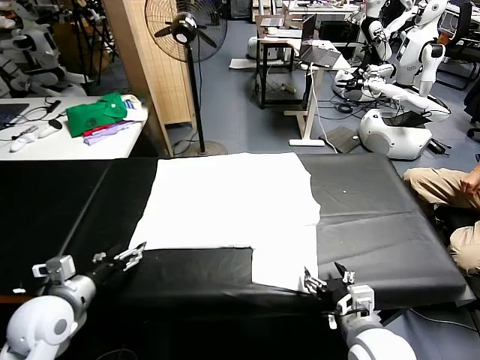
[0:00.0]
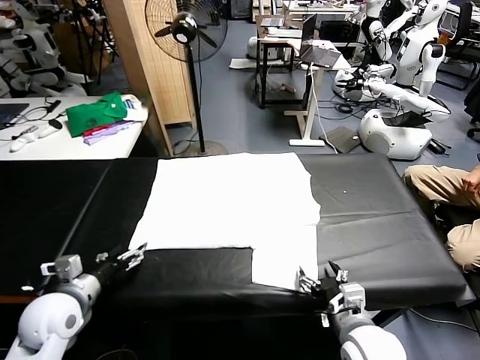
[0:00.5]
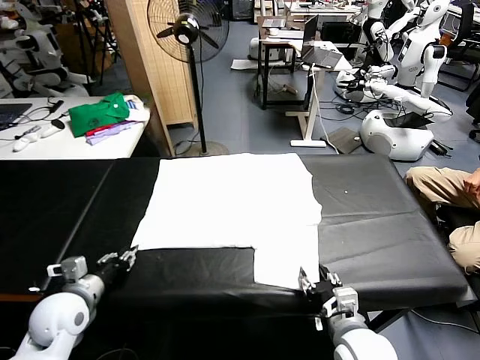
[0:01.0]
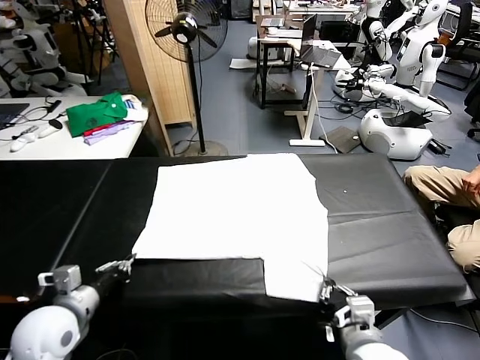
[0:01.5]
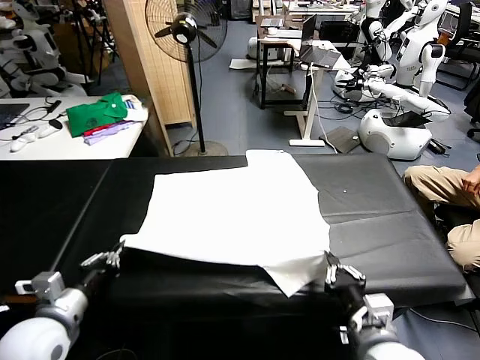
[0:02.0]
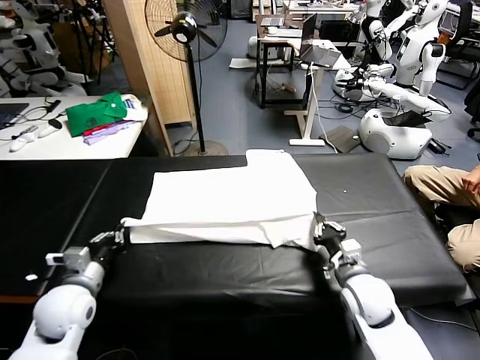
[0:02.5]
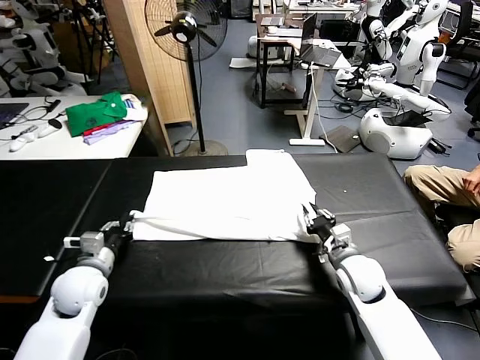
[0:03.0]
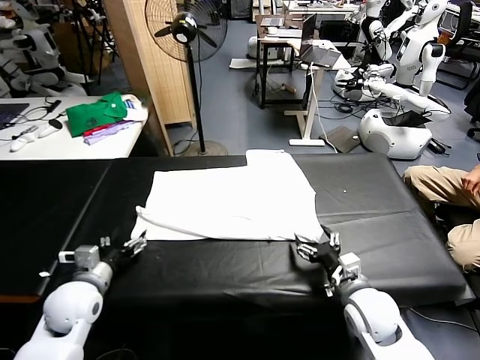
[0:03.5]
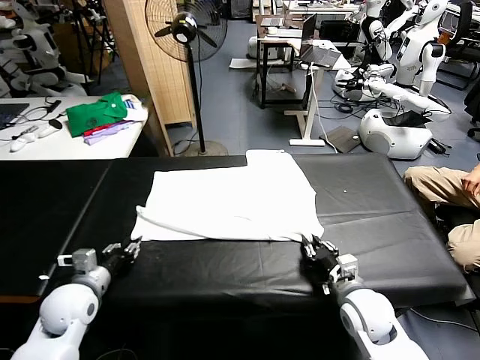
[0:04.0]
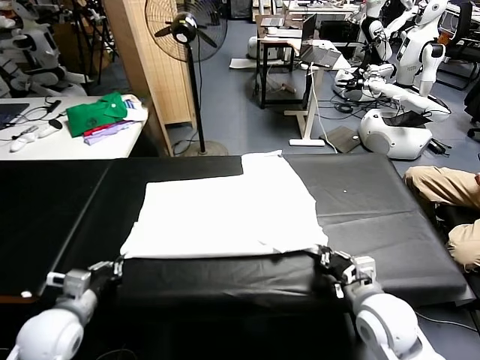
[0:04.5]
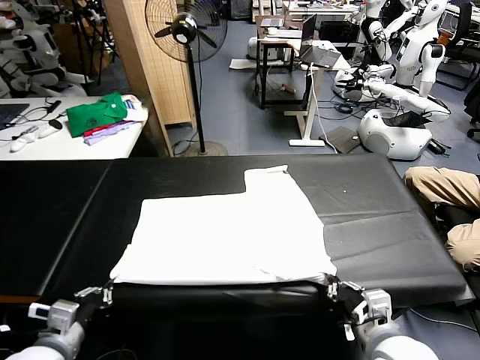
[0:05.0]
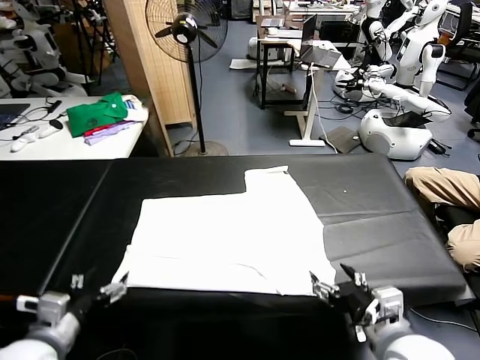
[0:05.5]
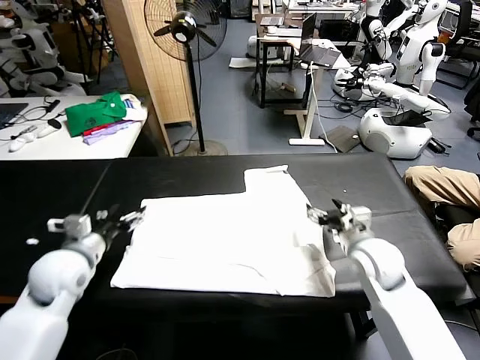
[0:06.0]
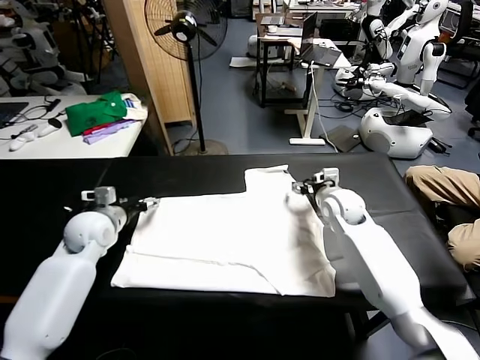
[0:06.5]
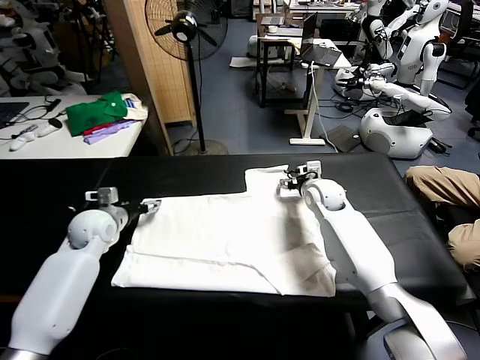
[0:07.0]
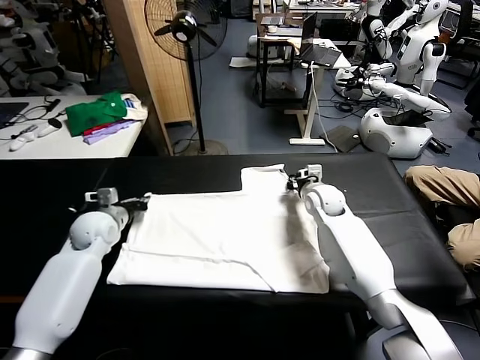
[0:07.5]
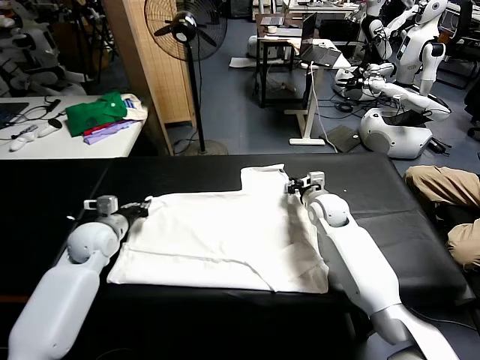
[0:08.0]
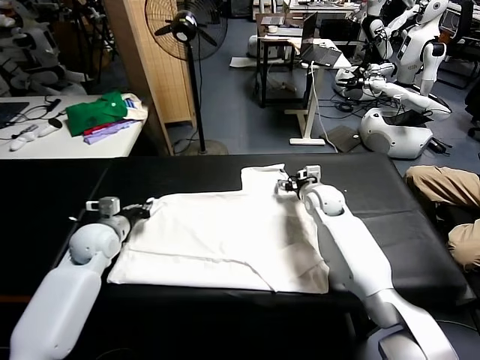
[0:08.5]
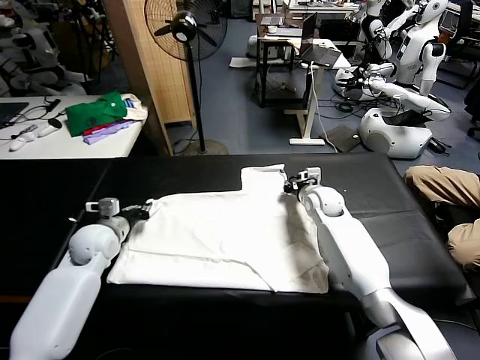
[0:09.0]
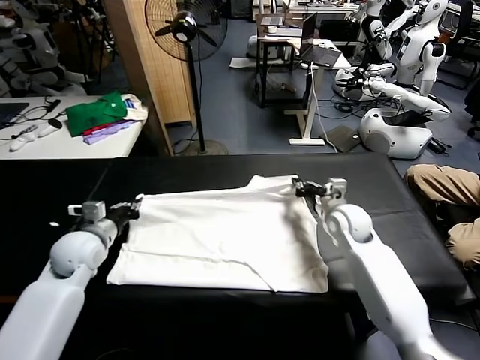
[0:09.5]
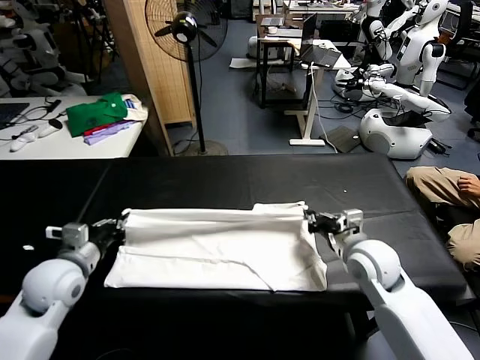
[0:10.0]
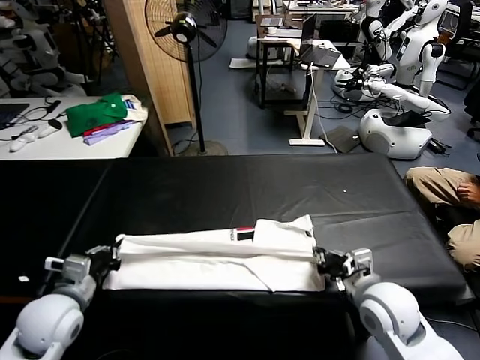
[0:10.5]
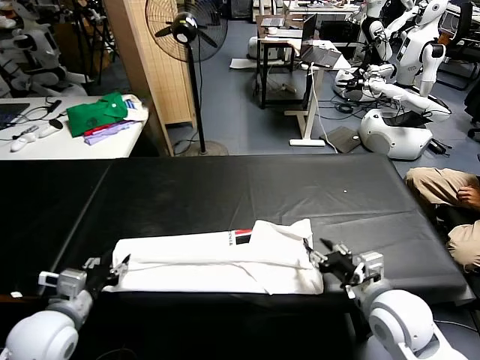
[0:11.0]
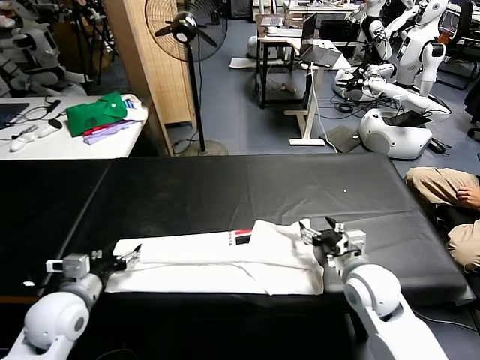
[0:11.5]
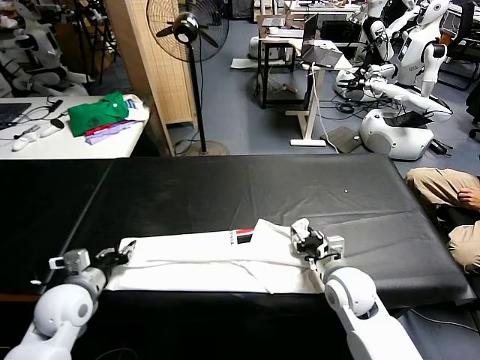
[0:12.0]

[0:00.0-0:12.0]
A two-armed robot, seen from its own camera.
Task of the whole recording: fold and organize the clothes.
Step, 0:00.0 to 0:01.0: use both grippers simultaneously to clamp the lower edge of the clothing fabric.
Step, 0:01.5 to 0:03.0: use both grippers to drag the lower edge of the fabric forward and fold it over the upper edge.
Step, 0:03.5 to 0:05.0: Drag the clothes downward with both gripper.
Step, 0:05.5 to 0:08.5: use both grippers simultaneously to clamp the upper edge of the clothing fabric.
Step, 0:09.0 to 0:10.5: use both grippers to drag the upper edge of the fabric backward and fold it over the lower edge.
0:02.0 to 0:04.0: The right gripper moves forward, about 5 cm, and opens, then closes again; the left gripper shifts about 10 cm forward and downward, and opens, then closes again.
0:04.0 to 0:06.0: The right gripper shifts approximately 15 cm forward, and opens its fingers, while the left gripper goes roughly 10 cm upward, moves roughly 15 cm backward and comes back, and opens up.
0:06.0 to 0:08.0: The left gripper shifts about 10 cm forward and downward, and closes its fingers; the right gripper moves forward, about 10 cm, and closes up.
0:08.0 to 0:10.0: The left gripper is displaced backward by some 10 cm, while the right gripper moves backward, approximately 20 cm, and closes.
0:10.0 to 0:12.0: Both grippers move downward, about 5 cm. The right gripper opens, then closes once more. Meanwhile the left gripper goes backward and returns, some 10 cm each way, and opens.

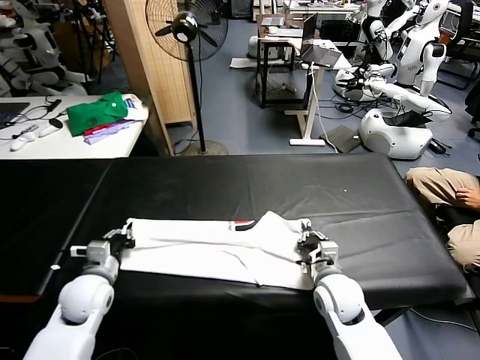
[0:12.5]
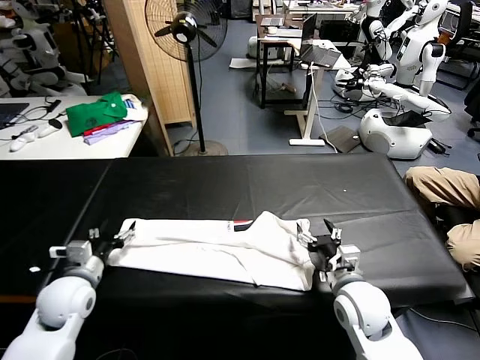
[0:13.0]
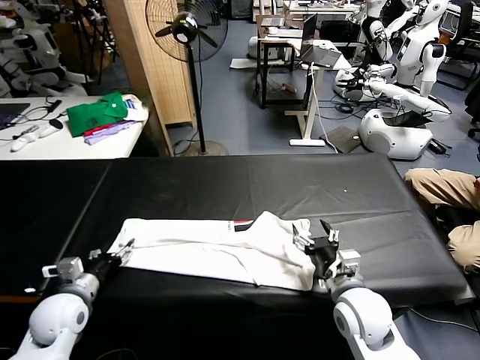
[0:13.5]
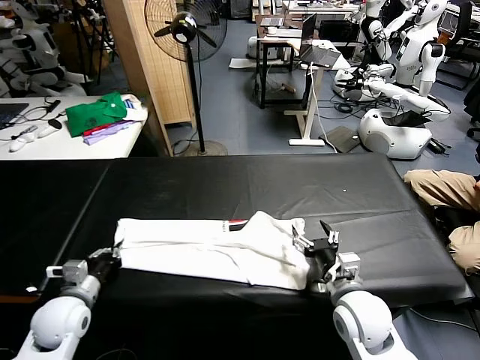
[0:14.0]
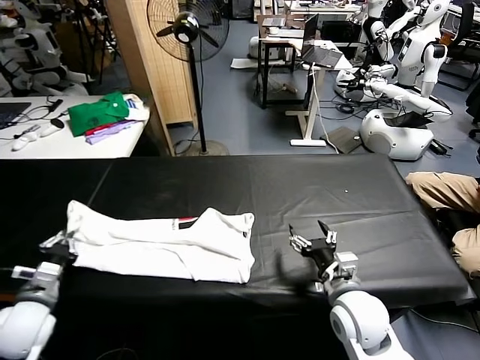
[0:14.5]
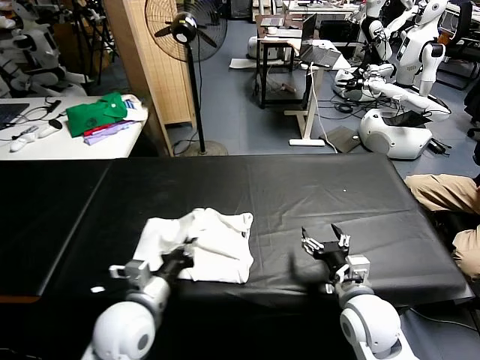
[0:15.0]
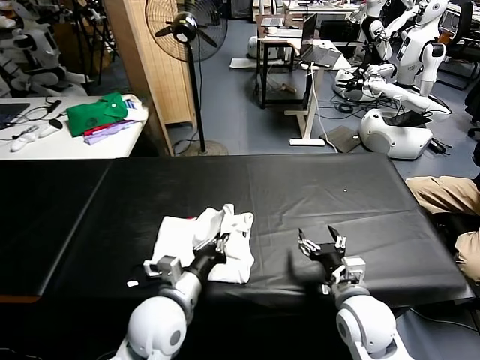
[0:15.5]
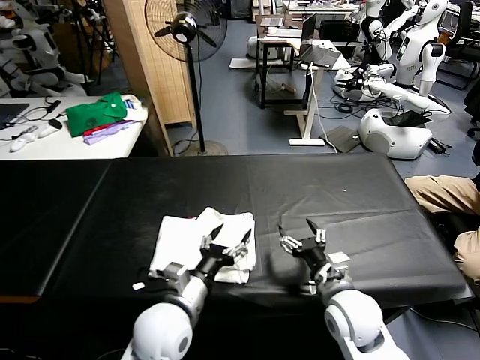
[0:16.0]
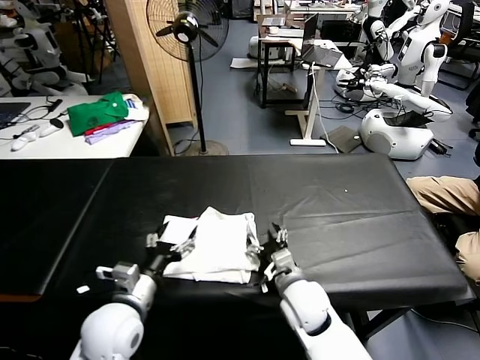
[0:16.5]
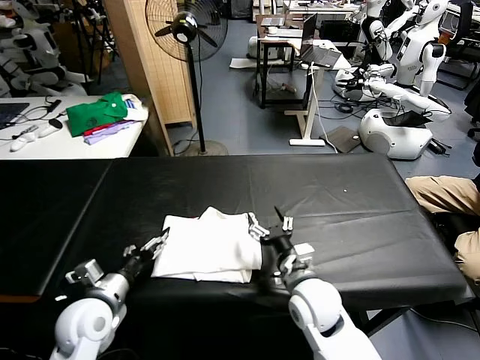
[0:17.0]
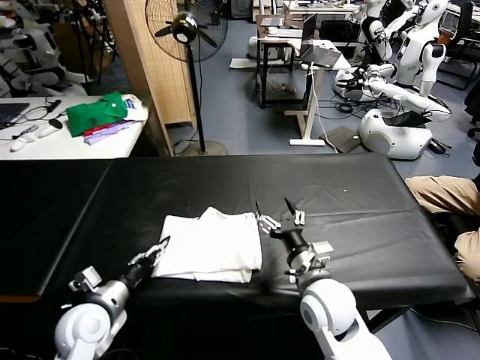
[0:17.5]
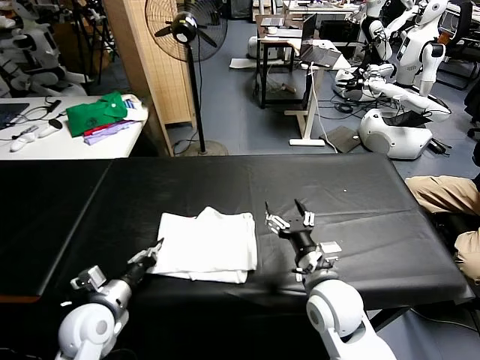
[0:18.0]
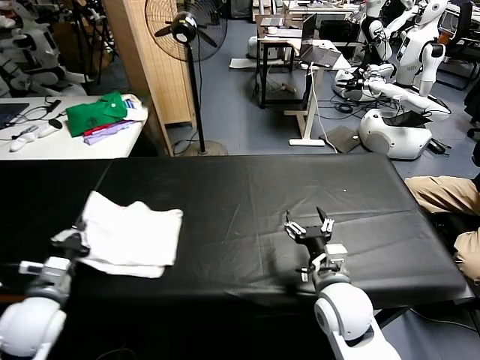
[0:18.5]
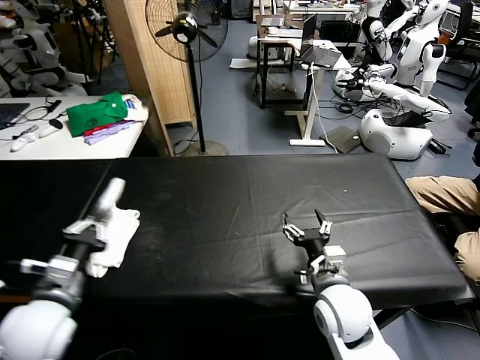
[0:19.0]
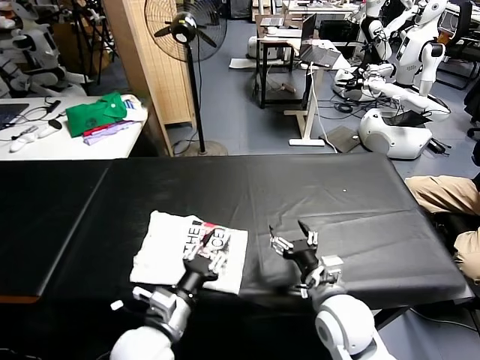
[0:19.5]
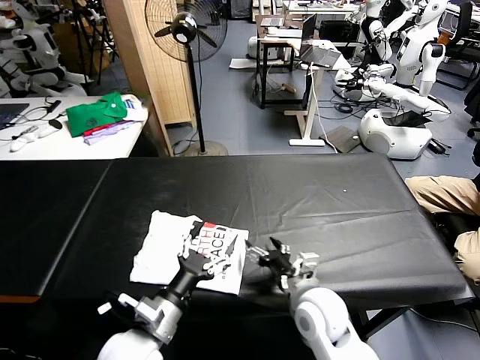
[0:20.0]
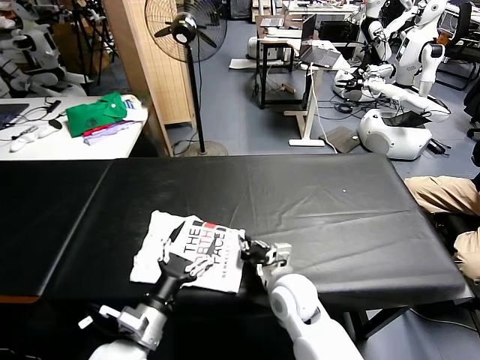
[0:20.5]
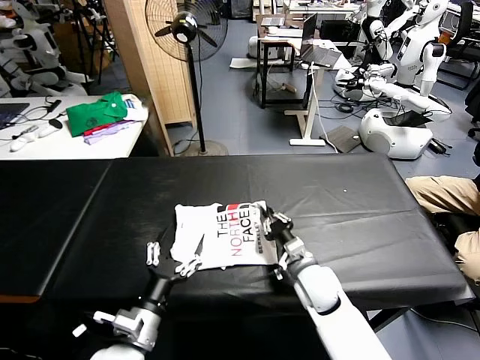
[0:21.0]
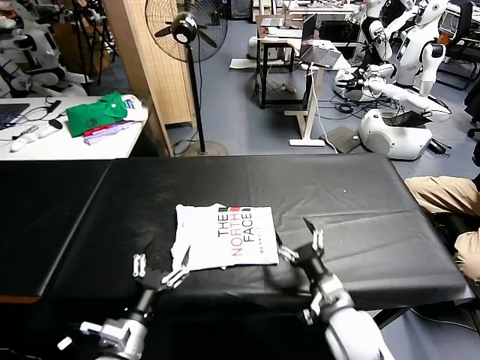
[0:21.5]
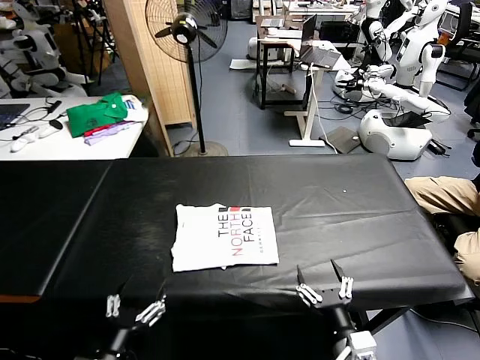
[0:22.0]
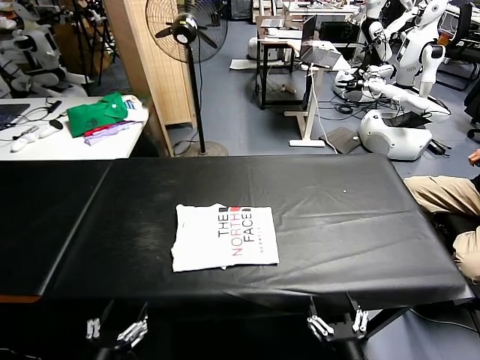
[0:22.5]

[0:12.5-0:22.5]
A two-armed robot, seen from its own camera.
Task of the whole recording: fold and organize the clothes.
Step, 0:14.0 to 0:15.5: use the left gripper to drag the left edge of the fabric to the left and folds it over the right edge.
Step, 0:16.0 to 0:19.5: Flip the folded clothes over with left gripper.
Step, 0:20.0 to 0:21.0: Drag the clothes to the center of the table.
0:12.5 to 0:14.5: The right gripper heads backward and upward, covering approximately 10 cm, and opens its fingers; the left gripper moves to the left and backward, approximately 10 cm, and opens and closes again.
0:14.5 to 0:16.5: The left gripper heads to the right, covering some 20 cm, and opens up; the right gripper is displaced to the left and downward by some 10 cm.
0:16.5 to 0:18.5: The left gripper moves to the left, some 15 cm, and closes its fingers, while the right gripper travels upward and to the right by some 10 cm.
0:18.5 to 0:20.5: The right gripper heads to the left and downward, covering approximately 10 cm, and closes; the left gripper goes about 15 cm to the right, and opens up.
0:20.5 to 0:22.5: The left gripper is displaced backward and to the left by approximately 15 cm. Meanwhile the right gripper moves backward and to the right, roughly 25 cm, and opens up.

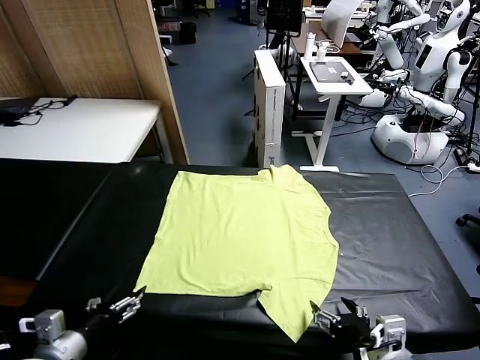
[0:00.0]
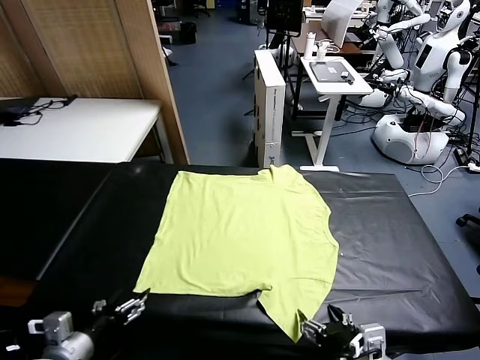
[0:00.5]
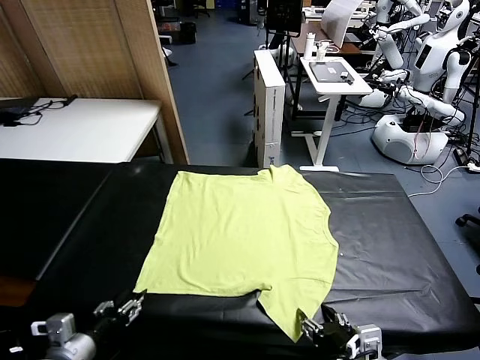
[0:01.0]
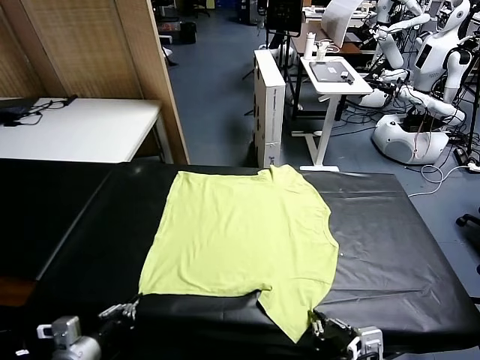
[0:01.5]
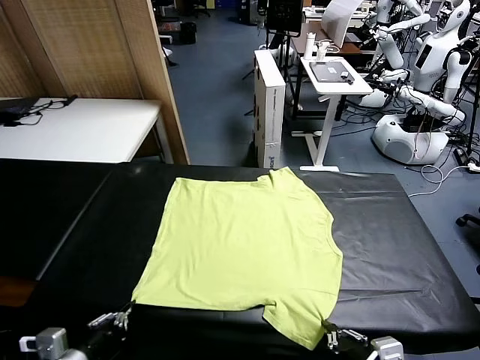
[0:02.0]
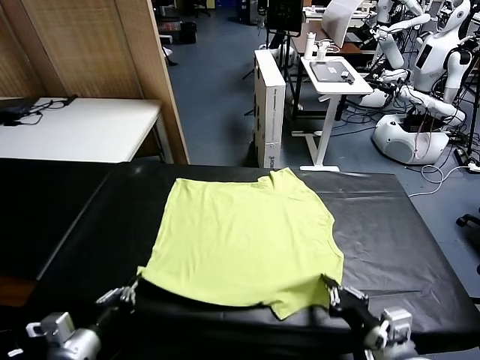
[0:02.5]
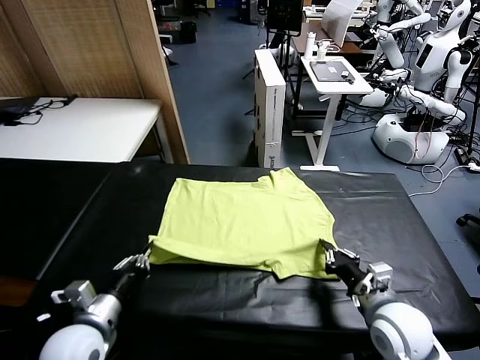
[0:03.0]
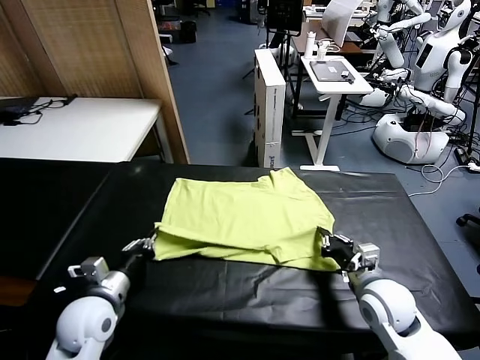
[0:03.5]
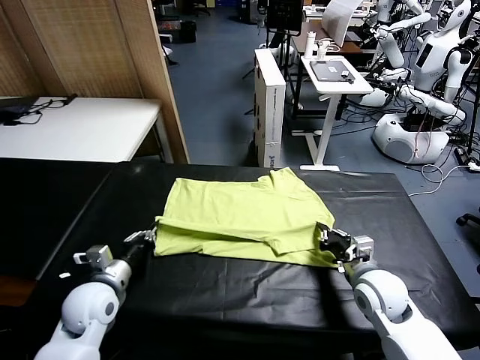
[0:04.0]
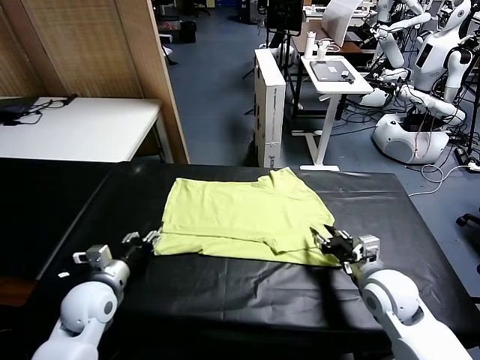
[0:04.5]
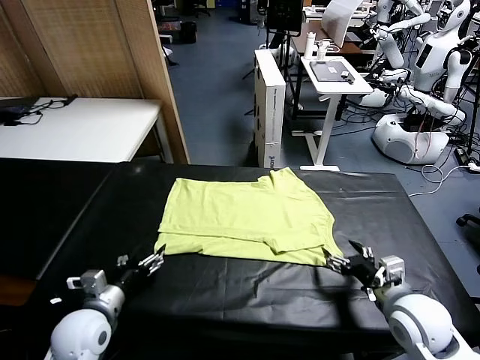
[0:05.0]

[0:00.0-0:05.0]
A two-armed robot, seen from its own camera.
Task of the whole recording: fold and organize the clothes.
Step, 0:00.0 to 0:01.5: use both grippers simultaneously to clamp the lower edge of the clothing fabric.
Step, 0:02.0 to 0:04.5: use both grippers to drag the lower edge of the fabric forward and fold it over the upper edge.
0:02.5 to 0:05.0: The right gripper travels forward and back again, approximately 10 cm each way, and opens its fingers; the left gripper is displaced forward and downward by some 10 cm, and opens.
